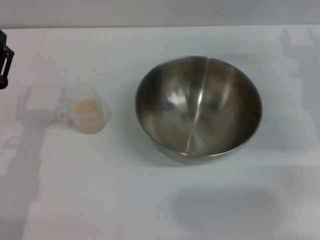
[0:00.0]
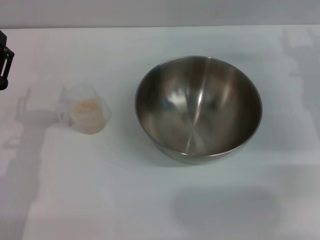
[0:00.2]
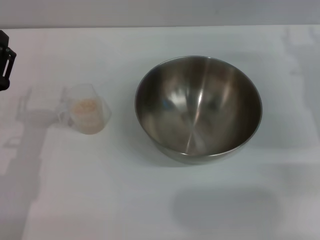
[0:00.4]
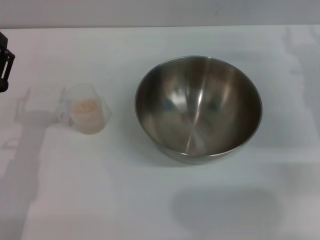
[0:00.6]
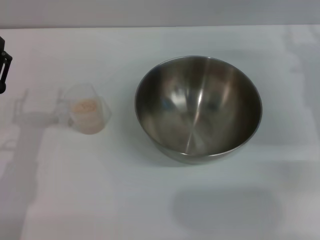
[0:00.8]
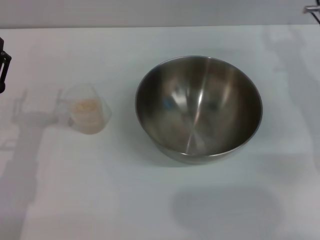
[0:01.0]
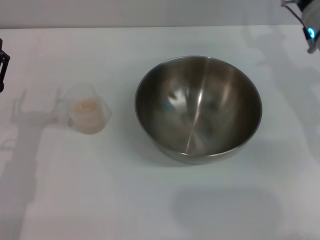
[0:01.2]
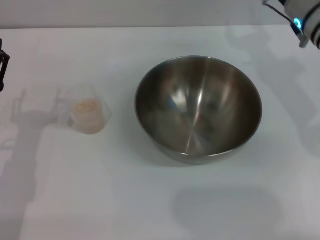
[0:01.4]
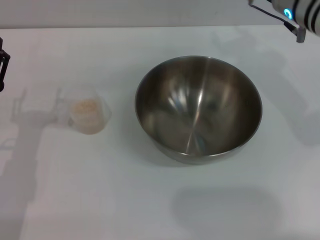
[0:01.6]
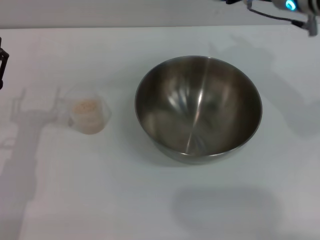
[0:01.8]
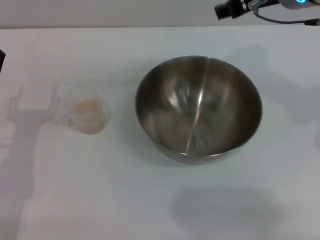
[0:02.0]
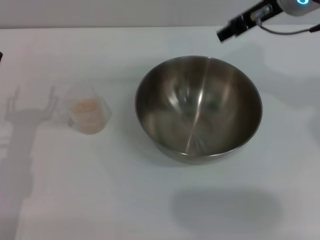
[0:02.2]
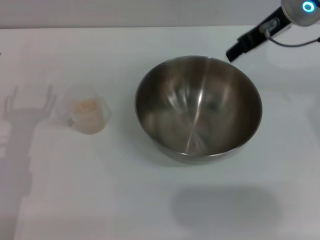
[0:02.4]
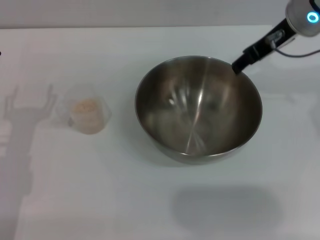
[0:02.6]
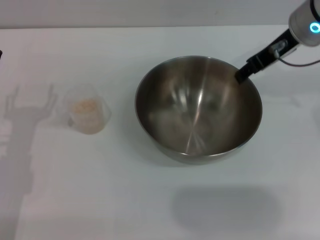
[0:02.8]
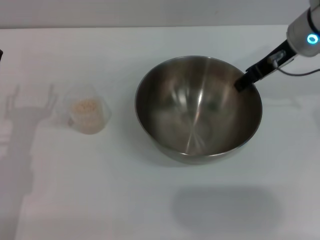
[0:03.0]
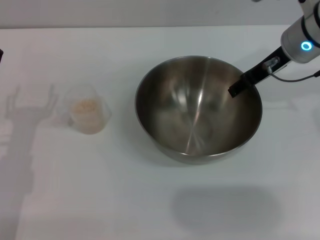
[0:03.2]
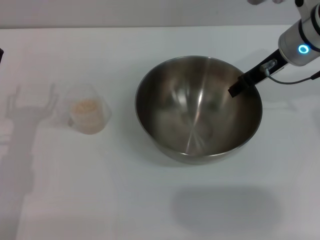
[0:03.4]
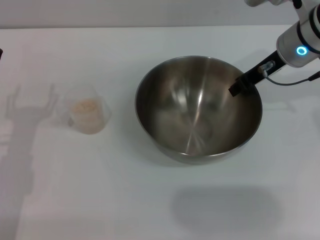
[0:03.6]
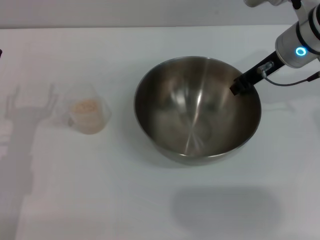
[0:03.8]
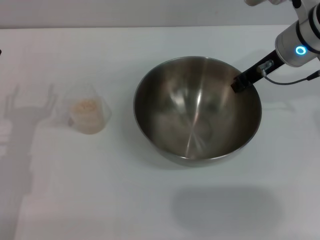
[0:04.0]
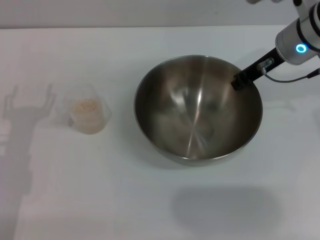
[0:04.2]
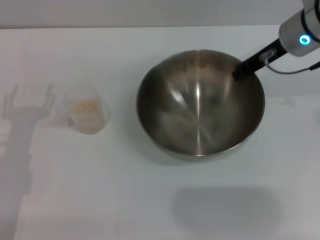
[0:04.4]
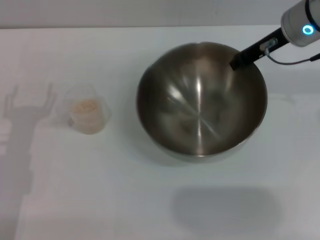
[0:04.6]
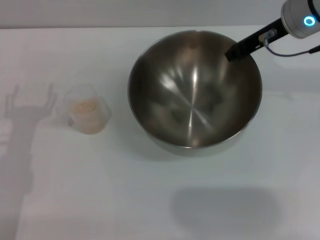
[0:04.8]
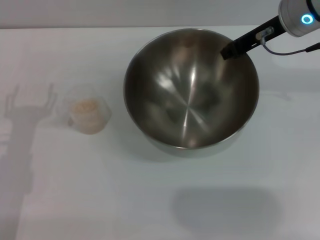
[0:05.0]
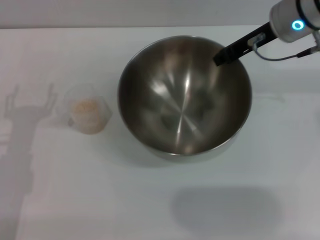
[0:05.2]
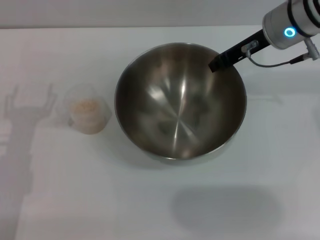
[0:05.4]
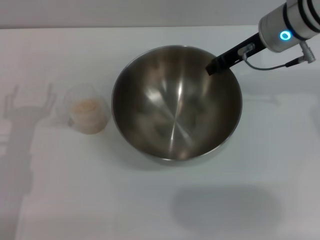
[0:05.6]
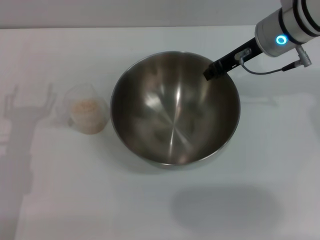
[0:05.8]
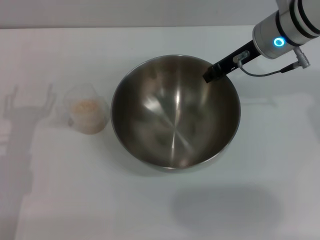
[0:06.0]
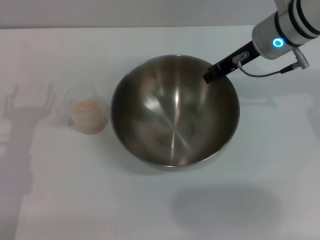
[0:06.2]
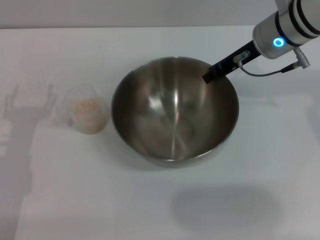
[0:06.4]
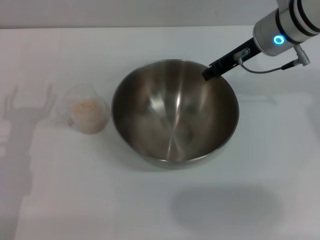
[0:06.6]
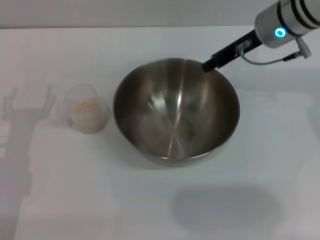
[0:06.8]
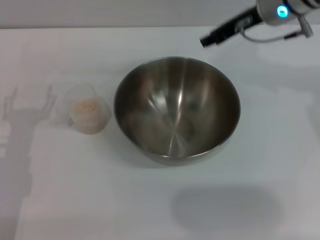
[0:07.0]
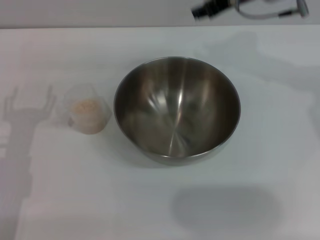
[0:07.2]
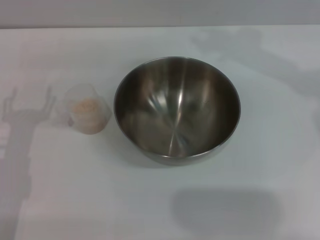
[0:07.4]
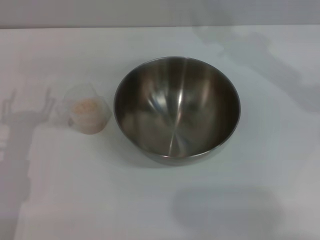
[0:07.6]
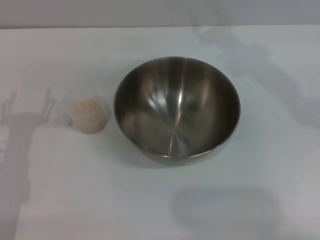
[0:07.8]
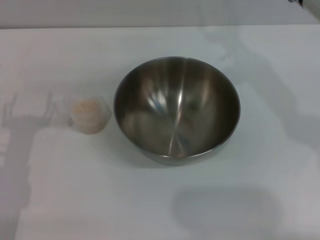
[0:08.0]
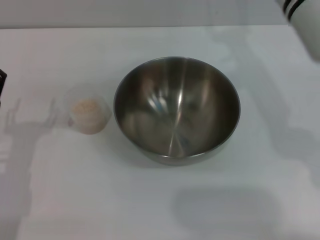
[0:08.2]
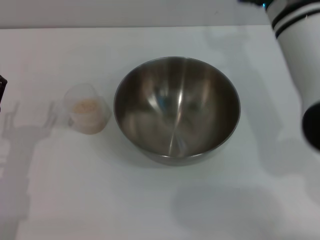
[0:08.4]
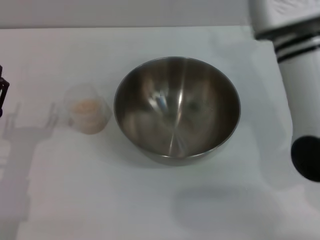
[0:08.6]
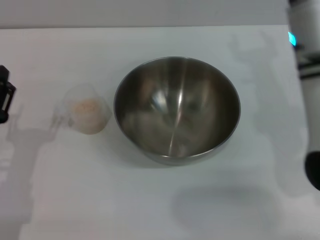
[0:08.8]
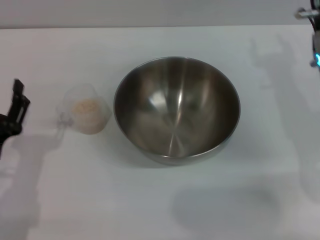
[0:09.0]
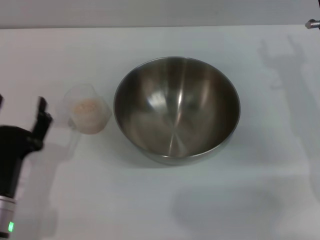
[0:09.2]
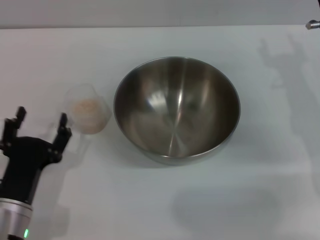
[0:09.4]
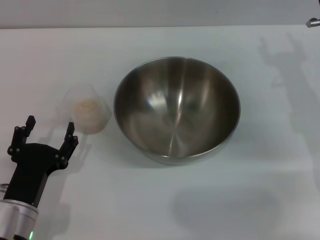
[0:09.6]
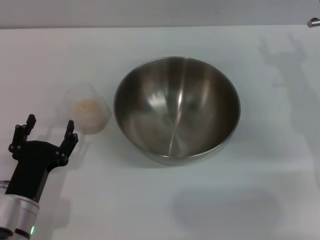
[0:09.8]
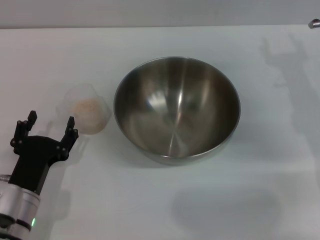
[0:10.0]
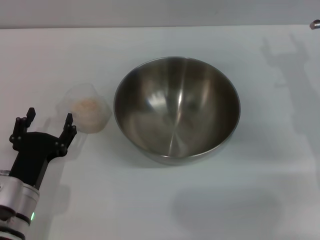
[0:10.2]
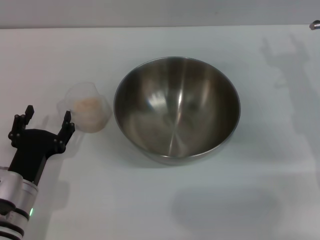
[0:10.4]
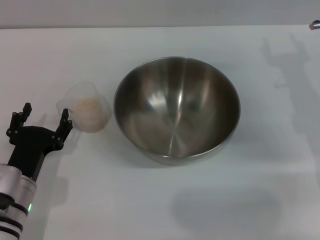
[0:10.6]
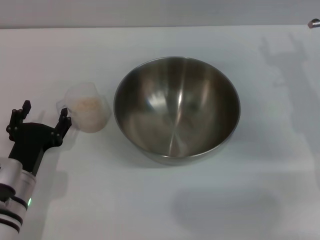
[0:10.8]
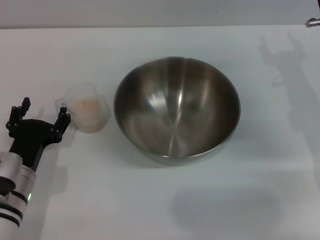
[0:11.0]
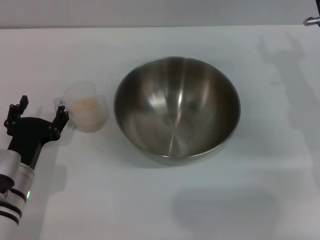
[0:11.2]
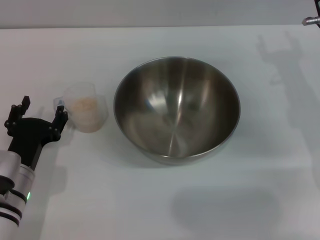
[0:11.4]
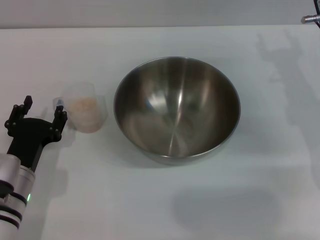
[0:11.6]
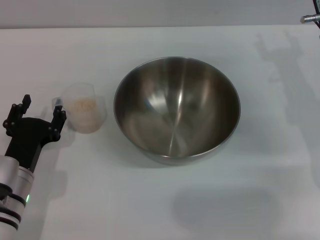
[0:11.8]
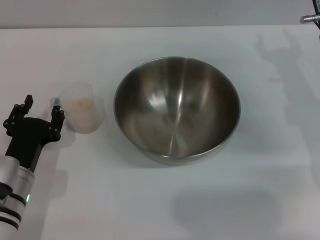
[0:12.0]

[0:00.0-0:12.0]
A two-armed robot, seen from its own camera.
Task of the whole recording: Place the bowl in the middle of the table with one hand and pour the rice from the grain cup into it with the other hand.
Step, 0:00.0 to 0:04.8: Pick up the bowl with the right gripper.
Step, 0:05.2 to 0:07.0: Place the bowl in the center of view with the right gripper.
0:00.0 to 0:01.6: The right gripper moves to the left and upward, roughly 15 cm.
0:03.0 to 0:04.4: The right gripper closes.
0:06.0 to 0:07.6: The right gripper heads upward, covering approximately 10 cm, and opens up.
0:07.6 to 0:09.0: The right gripper heads downward, backward and to the right, covering some 15 cm, and opens its fingers. Meanwhile the left gripper ends up some 5 cm from where it was.
0:10.4 to 0:12.0: The grippers move only a little.

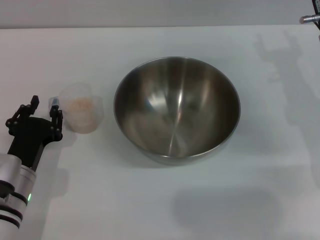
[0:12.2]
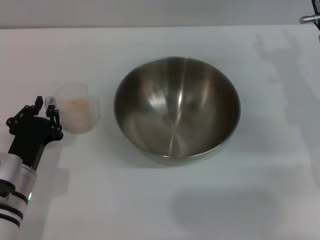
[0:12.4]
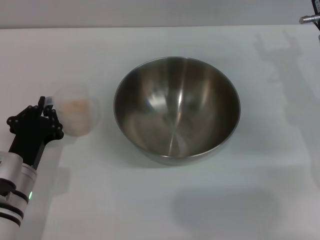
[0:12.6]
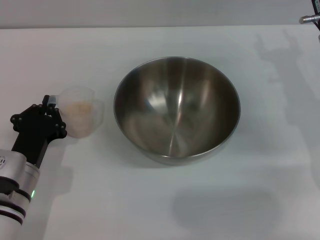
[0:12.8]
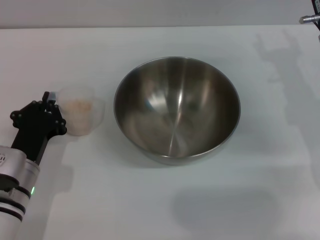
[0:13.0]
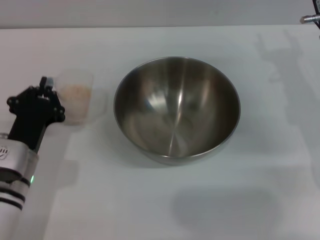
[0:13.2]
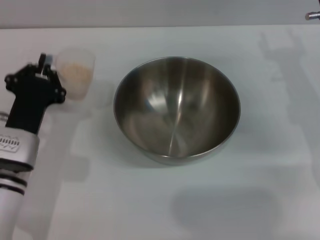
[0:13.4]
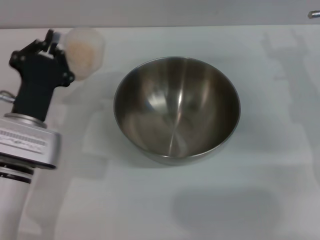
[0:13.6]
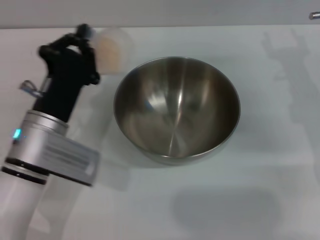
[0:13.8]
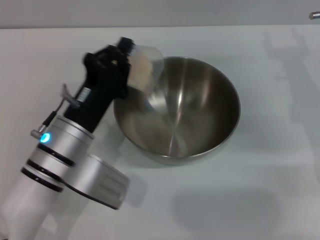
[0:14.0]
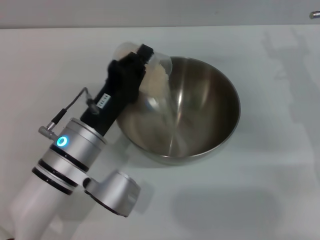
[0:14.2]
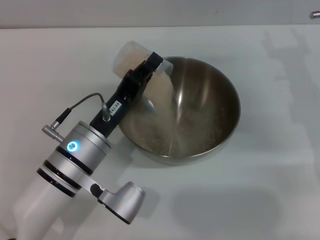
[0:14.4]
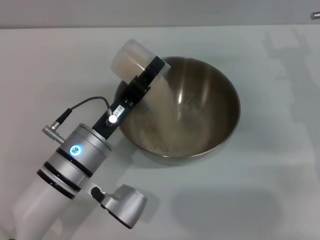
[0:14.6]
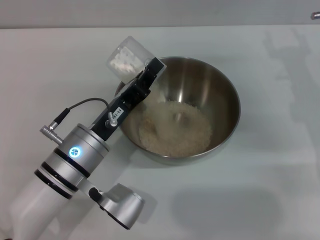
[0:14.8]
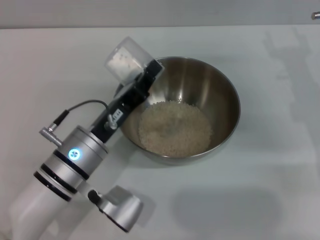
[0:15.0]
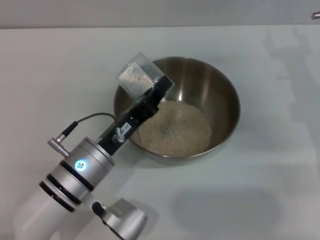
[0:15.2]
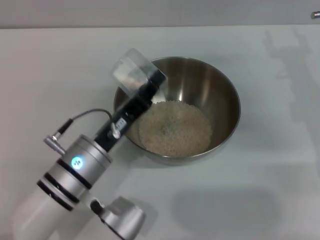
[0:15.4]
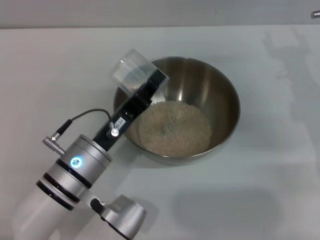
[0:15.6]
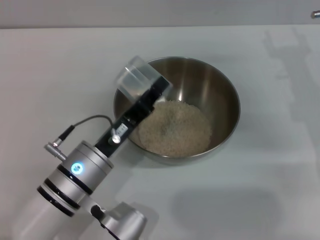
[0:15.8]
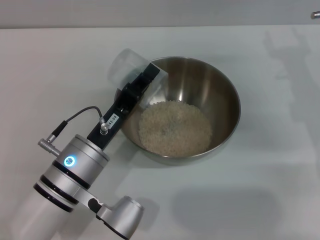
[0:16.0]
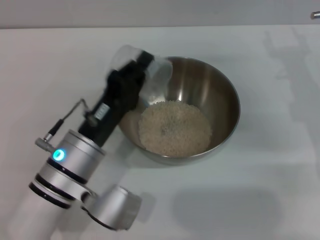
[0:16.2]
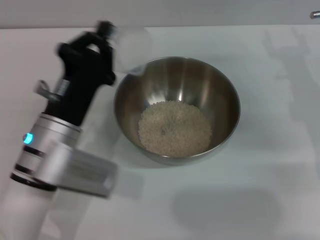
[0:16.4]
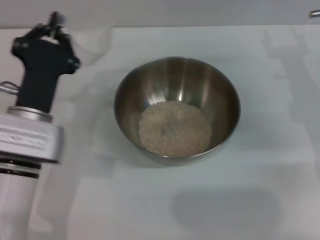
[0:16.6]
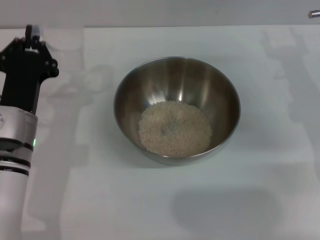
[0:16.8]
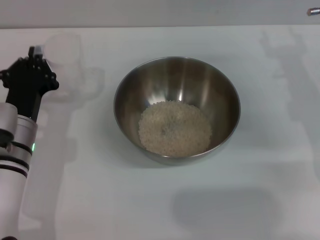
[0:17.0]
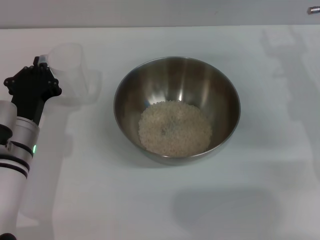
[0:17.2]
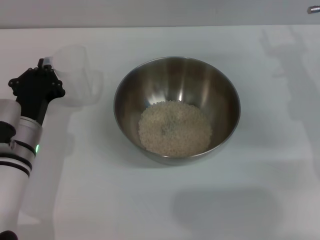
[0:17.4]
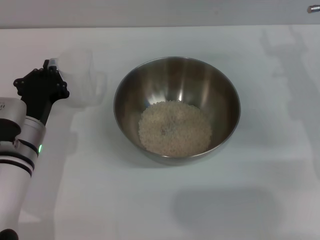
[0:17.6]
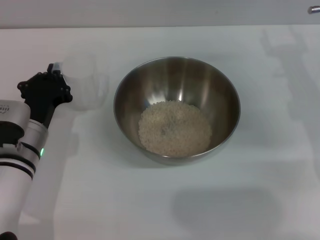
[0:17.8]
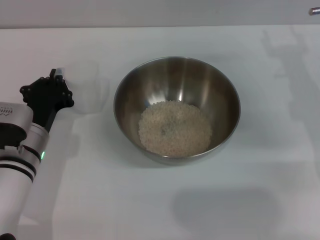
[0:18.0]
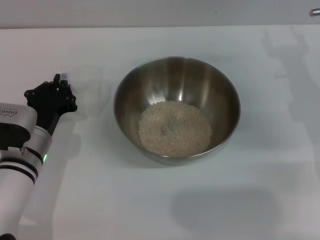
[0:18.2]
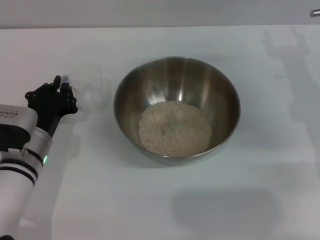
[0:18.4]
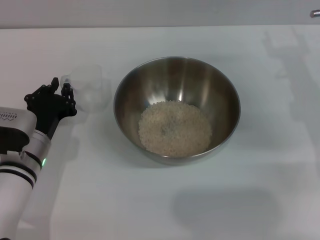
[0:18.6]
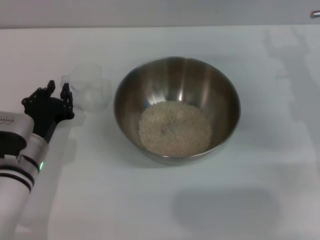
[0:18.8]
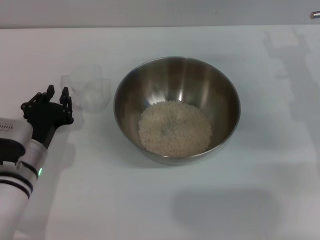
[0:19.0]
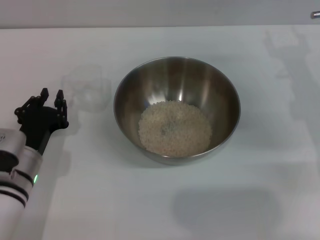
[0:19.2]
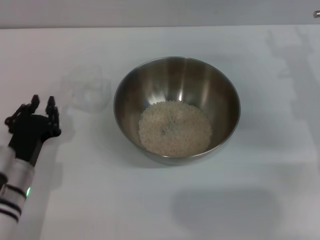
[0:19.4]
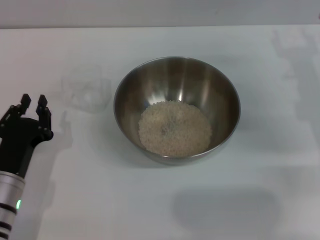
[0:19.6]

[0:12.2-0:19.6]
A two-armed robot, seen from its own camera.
Task of the whole recording: Place the bowl in the middle of the table with one hand and pour the rice from the grain cup into it with the other hand.
Step, 0:13.6 to 0:15.8: Pour the rice from the cup into the bowl with the left gripper.
Step, 0:16.2 to 0:19.2: Place the cup on the table with the left gripper.
0:12.2 to 0:13.6: The left gripper heads upward, covering some 5 cm, and closes.
0:13.6 to 0:15.2: The left gripper goes approximately 5 cm to the right.
0:15.2 to 0:16.6: The left gripper goes some 5 cm to the left.
0:16.6 to 0:18.2: The left gripper goes some 5 cm downward.
0:18.2 to 0:19.6: The left gripper travels backward by about 10 cm.
